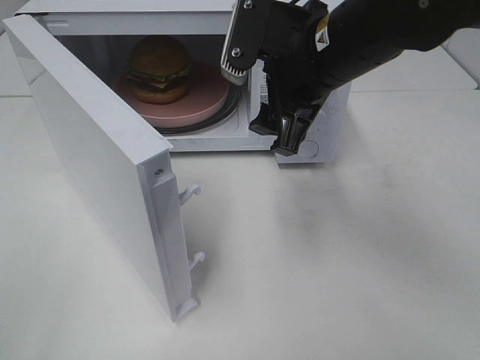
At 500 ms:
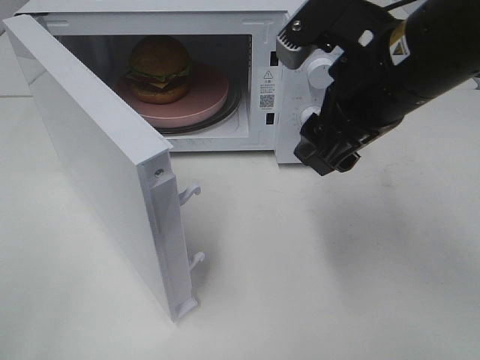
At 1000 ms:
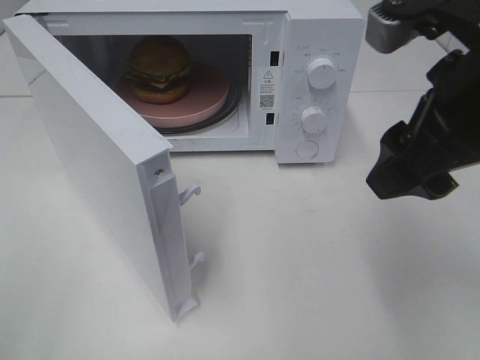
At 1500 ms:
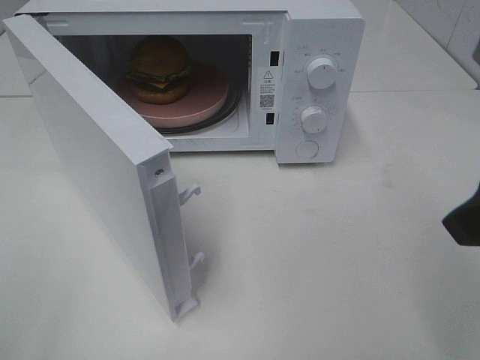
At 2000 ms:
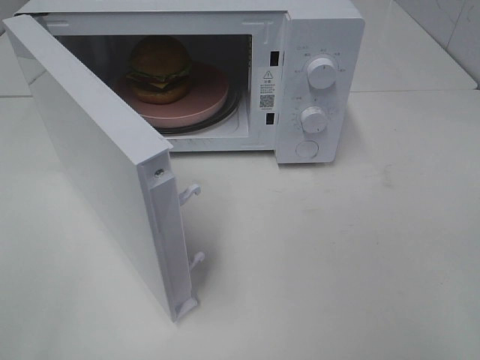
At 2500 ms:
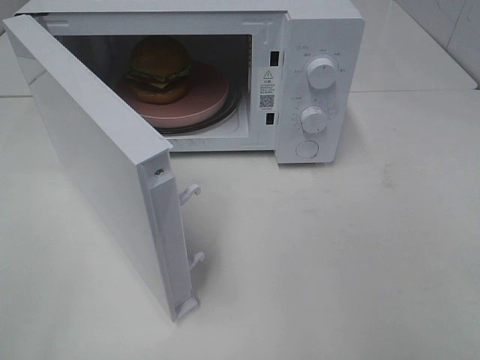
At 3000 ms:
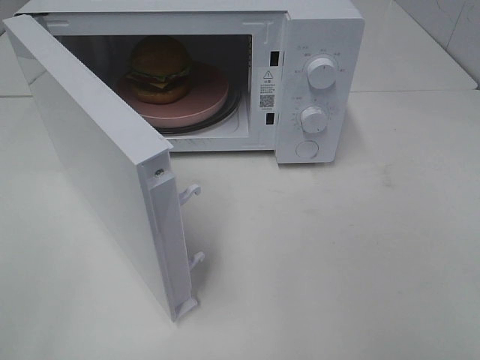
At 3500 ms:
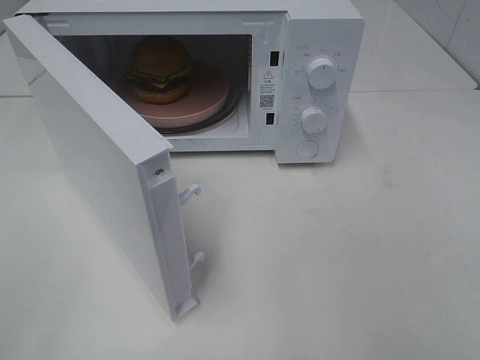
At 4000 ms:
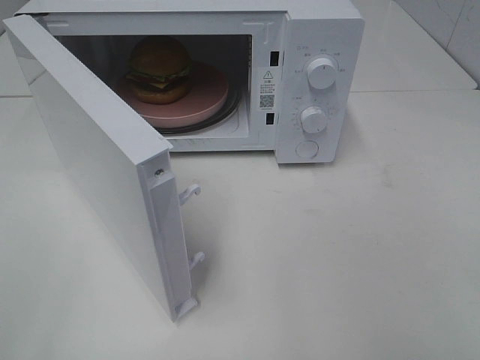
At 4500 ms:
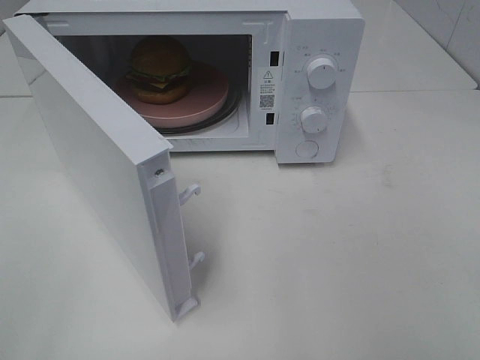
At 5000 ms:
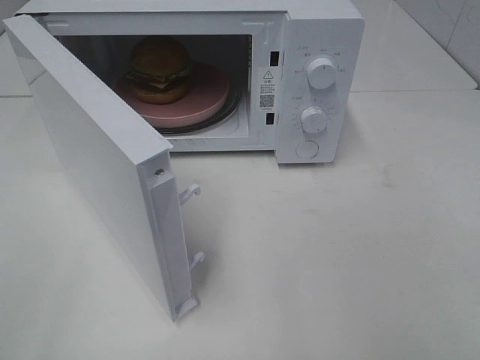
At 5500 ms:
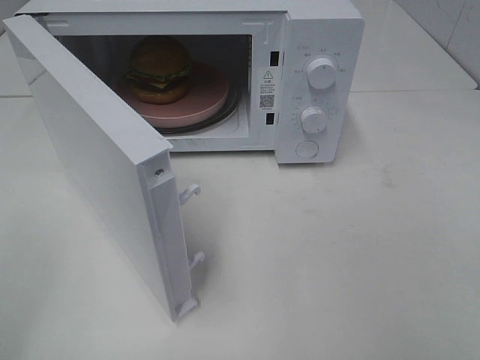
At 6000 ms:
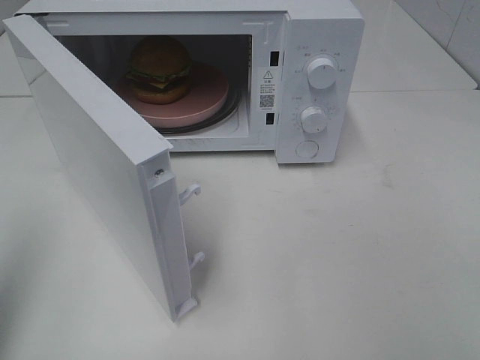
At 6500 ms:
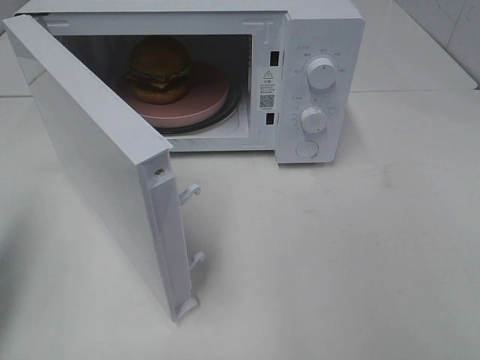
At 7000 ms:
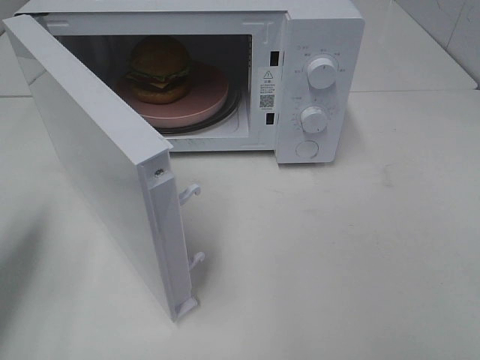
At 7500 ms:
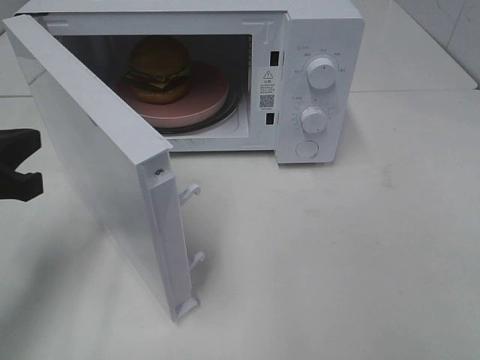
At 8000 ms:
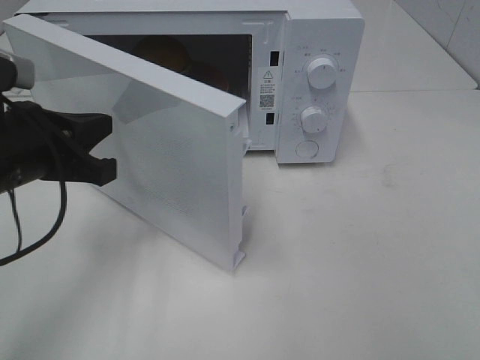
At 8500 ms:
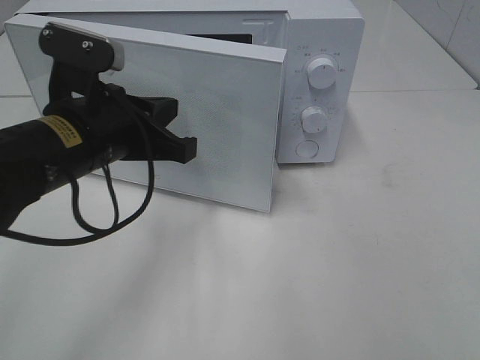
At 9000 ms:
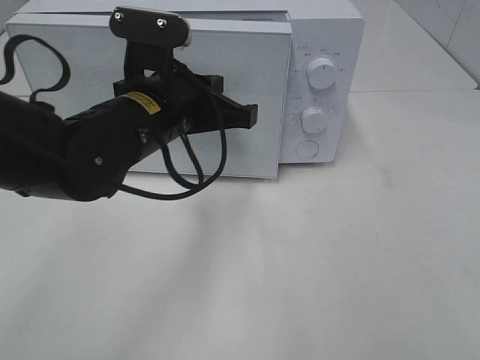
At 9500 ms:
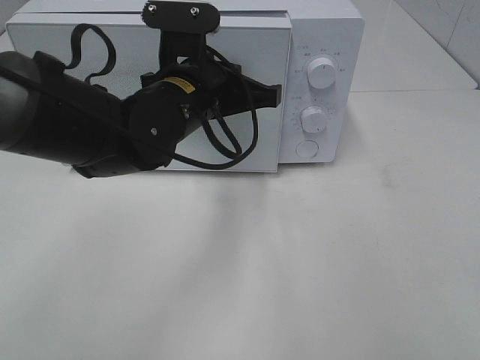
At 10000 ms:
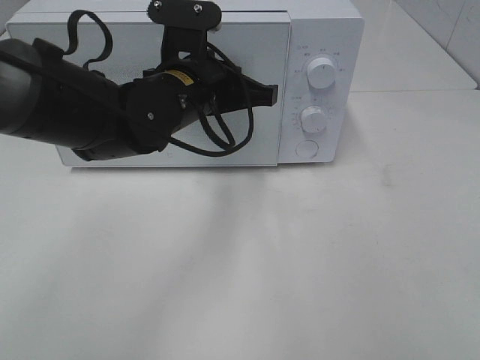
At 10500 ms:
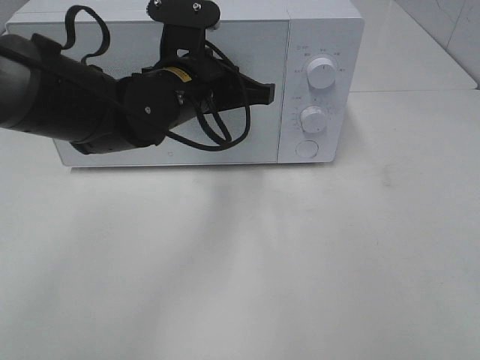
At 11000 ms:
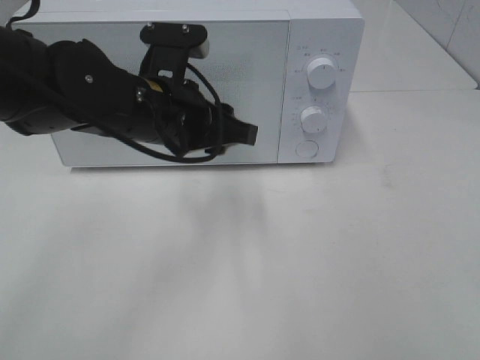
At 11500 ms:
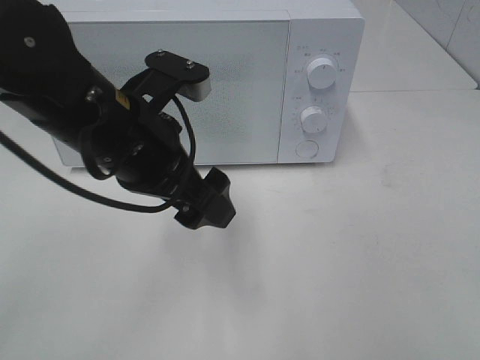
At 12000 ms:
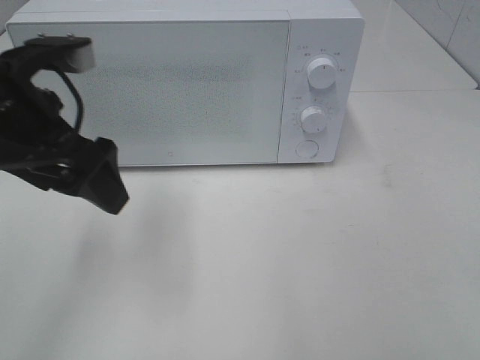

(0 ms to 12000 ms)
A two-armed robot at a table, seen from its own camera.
Task of the whole recording: Heat the burger.
Step, 0 ms - 10500 ms: Left hand: close the microwave door.
0 ms - 2000 ms: The right gripper heads backward and to the right, covering roughly 30 cm.
4000 ms - 6000 ms: The left gripper shifts some 10 cm forward, and closes up.
6000 ms - 8000 ms: The left gripper shifts roughly 20 cm downward, to the right and forward.
8000 ms - 10000 ms: The left gripper goes some 20 cm to the right and forward.
10000 ms - 12000 ms: The left gripper moves to the left, backward and upward, approximately 20 cm, and opens up.

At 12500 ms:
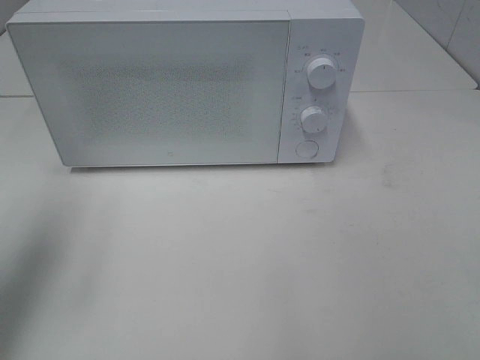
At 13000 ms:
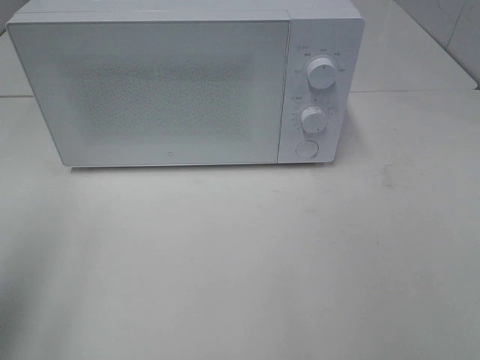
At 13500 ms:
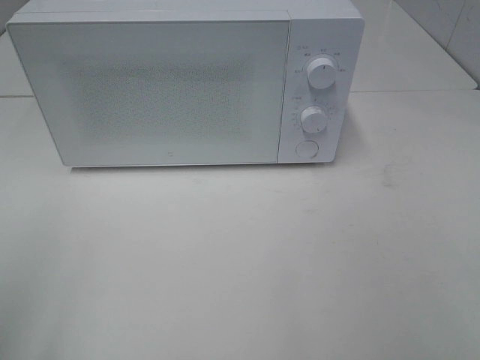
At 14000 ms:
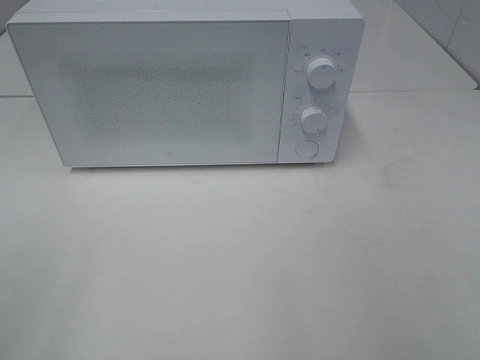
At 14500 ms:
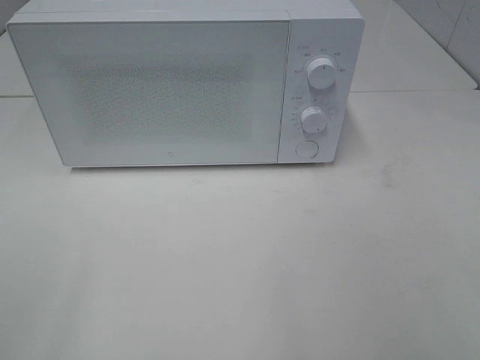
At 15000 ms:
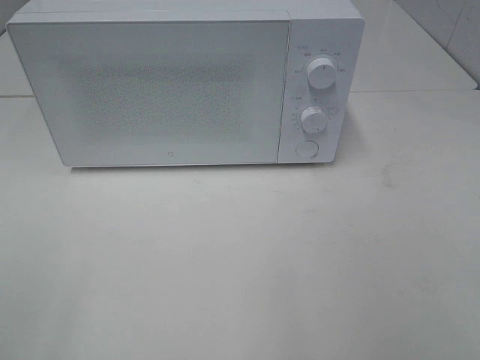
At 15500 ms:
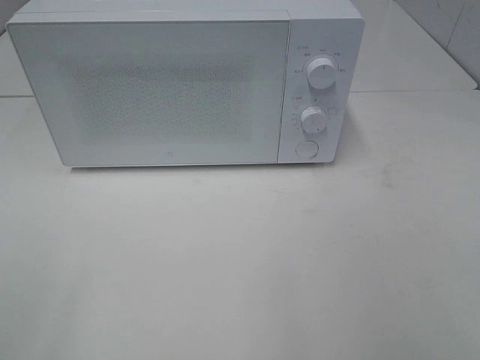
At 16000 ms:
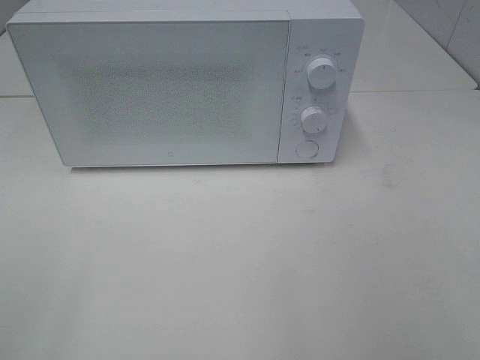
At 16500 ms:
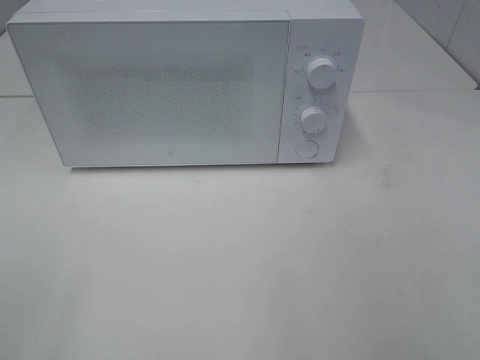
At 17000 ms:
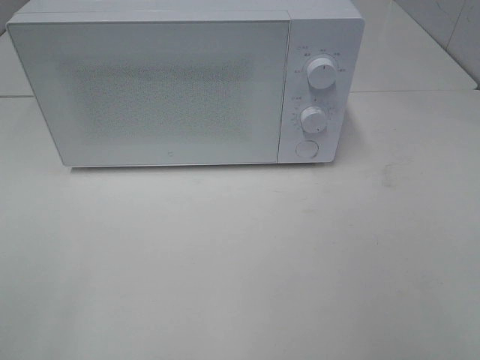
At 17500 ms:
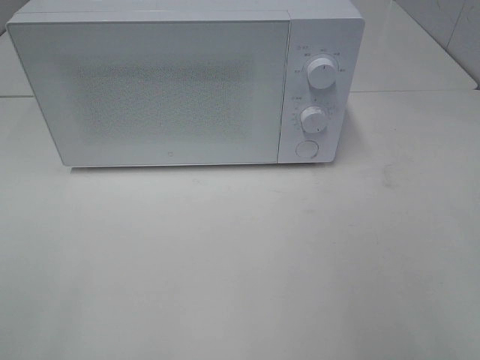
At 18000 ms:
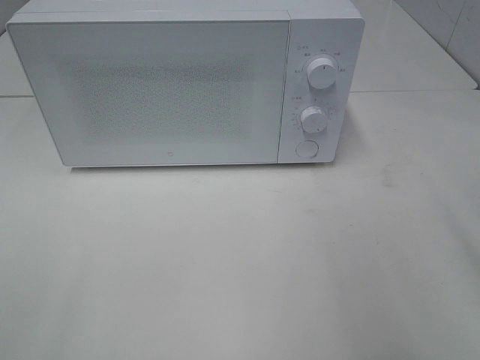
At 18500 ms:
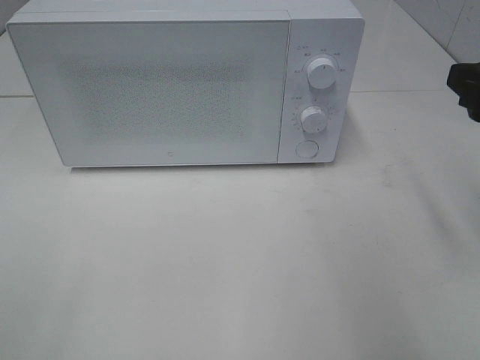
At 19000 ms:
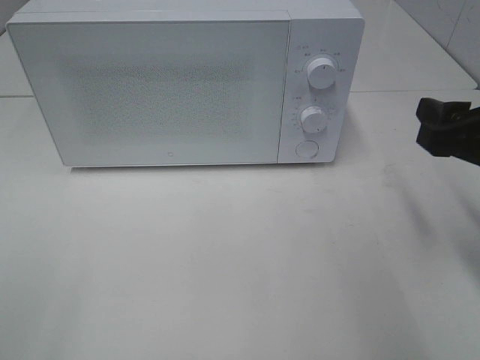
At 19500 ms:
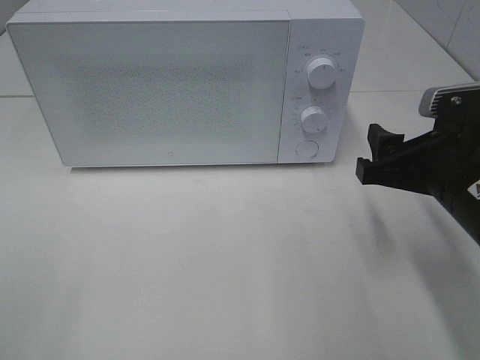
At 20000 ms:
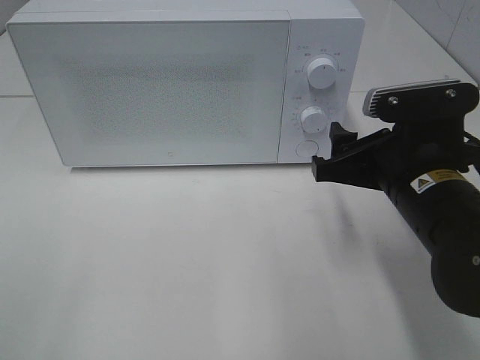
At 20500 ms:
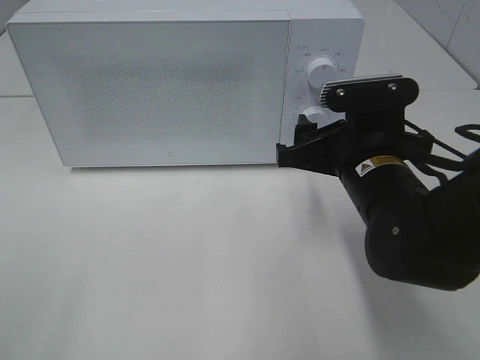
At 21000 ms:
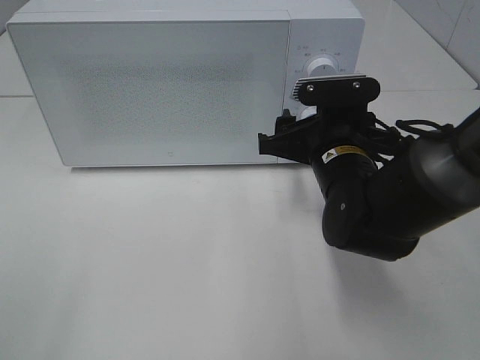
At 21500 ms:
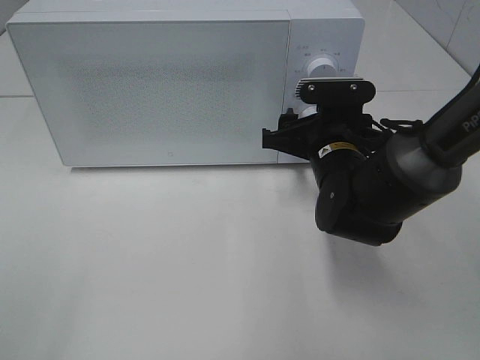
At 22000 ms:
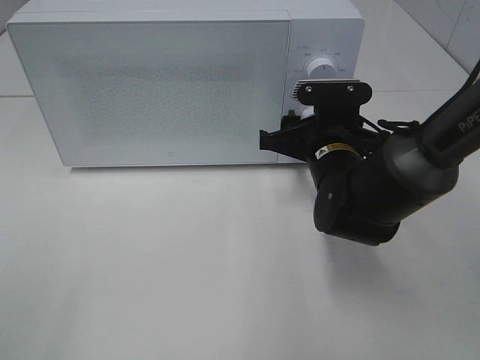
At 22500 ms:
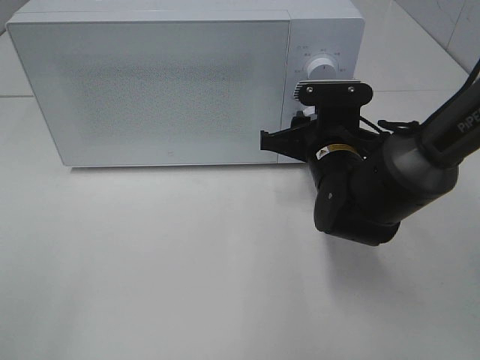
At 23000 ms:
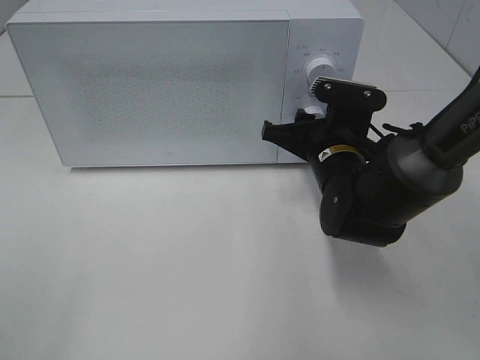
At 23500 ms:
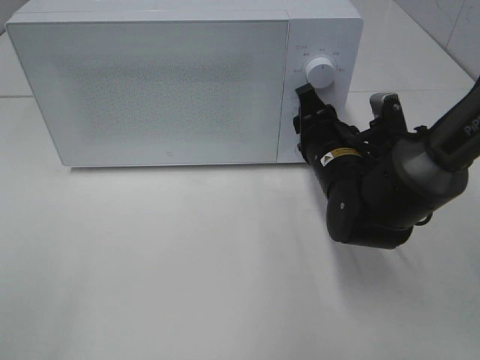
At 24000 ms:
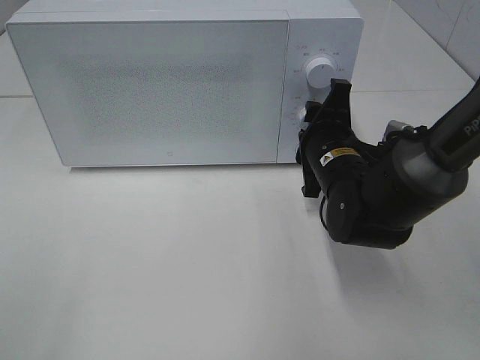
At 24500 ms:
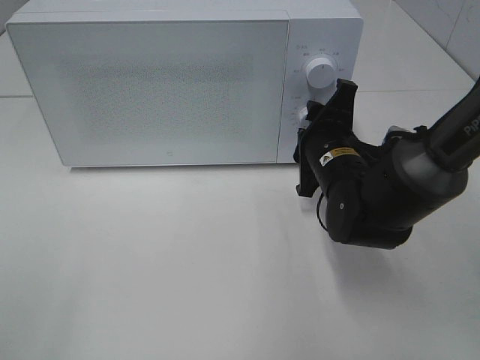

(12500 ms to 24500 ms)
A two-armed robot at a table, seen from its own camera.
Task of the whole recording: Heat the burger.
12500 ms - 14500 ms: The left gripper shifts approximately 20 cm backward.
16500 ms - 18500 ms: The right gripper shifts about 20 cm forward.
18500 ms - 20500 ms: The right gripper goes roughly 15 cm to the left and downward.
20500 ms - 22500 ms: The right gripper moves forward, about 5 cm, and closes up.

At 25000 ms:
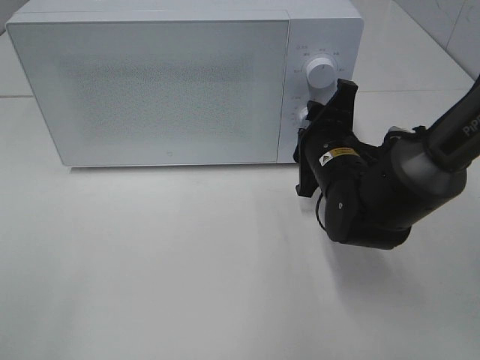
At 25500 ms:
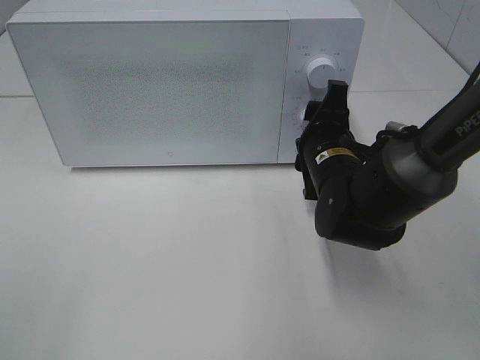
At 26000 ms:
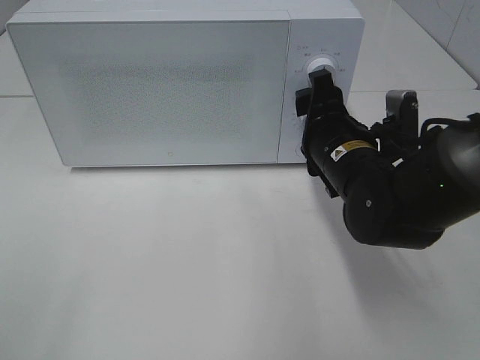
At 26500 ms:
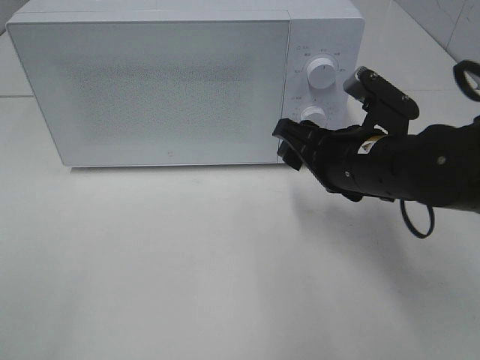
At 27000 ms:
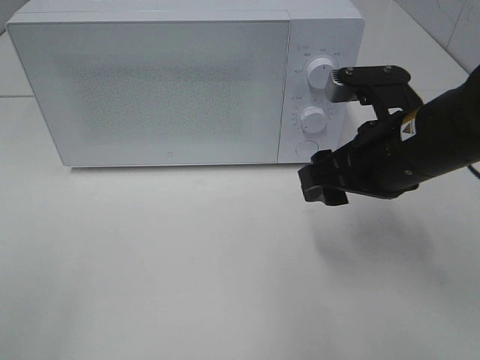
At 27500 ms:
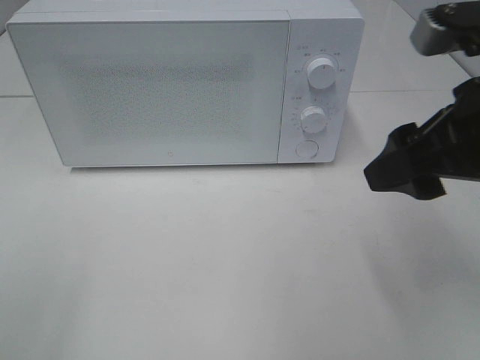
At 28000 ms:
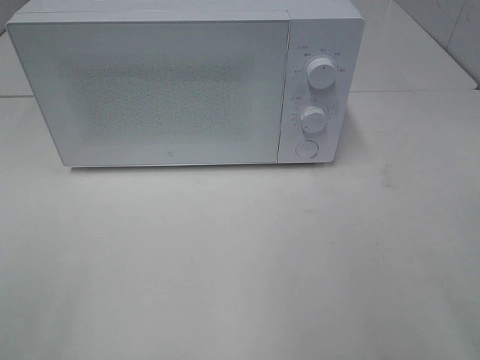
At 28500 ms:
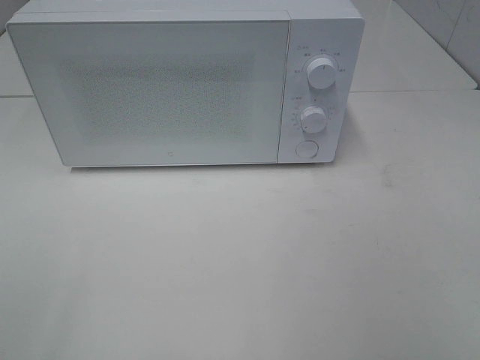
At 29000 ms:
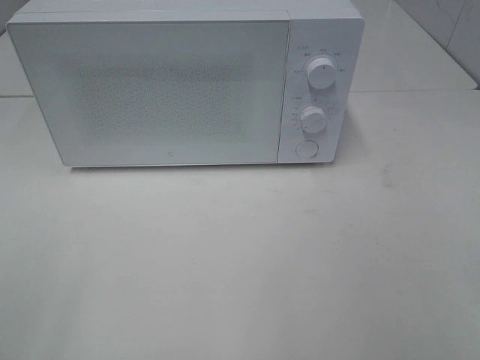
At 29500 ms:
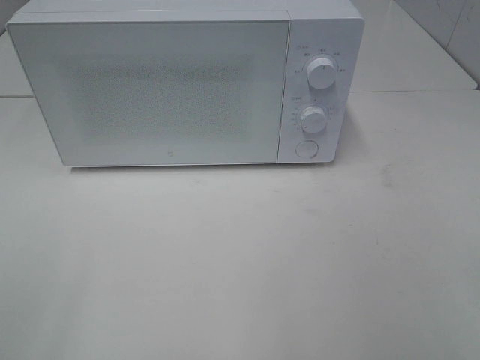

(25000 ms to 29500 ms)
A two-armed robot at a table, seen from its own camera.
Task of the whole recording: Heat the burger.
25000 ms - 27000 ms: The right gripper heads upward and backward, covering roughly 10 cm.
27000 ms - 29500 ms: The right gripper travels backward and to the right by approximately 30 cm.
